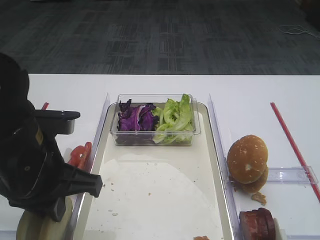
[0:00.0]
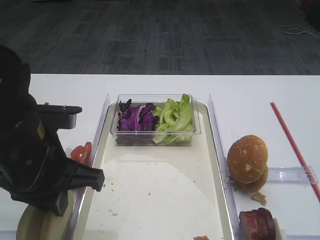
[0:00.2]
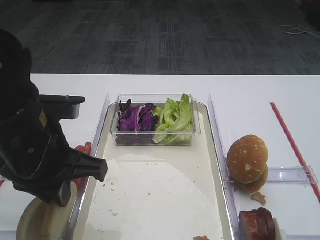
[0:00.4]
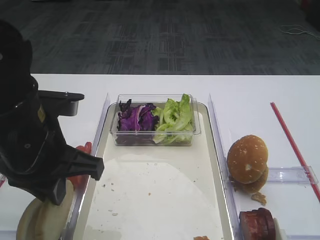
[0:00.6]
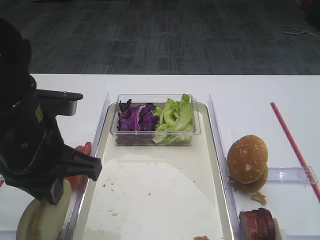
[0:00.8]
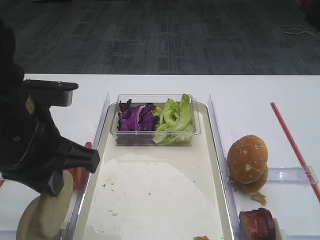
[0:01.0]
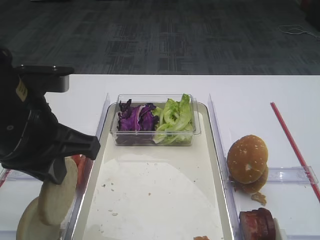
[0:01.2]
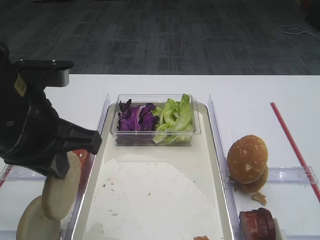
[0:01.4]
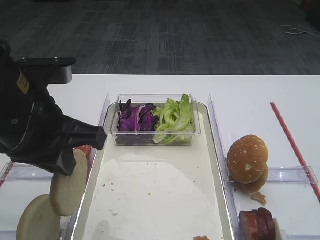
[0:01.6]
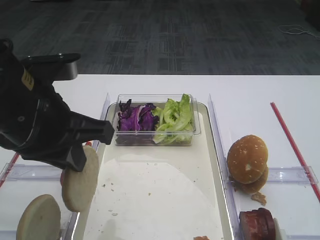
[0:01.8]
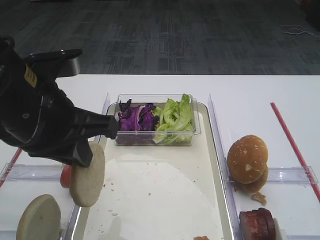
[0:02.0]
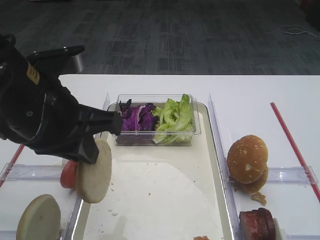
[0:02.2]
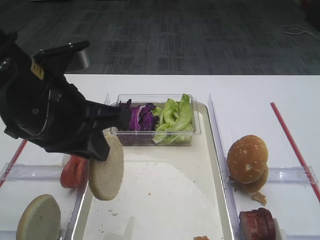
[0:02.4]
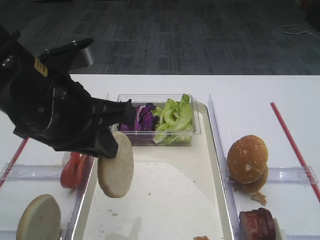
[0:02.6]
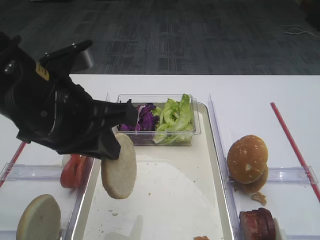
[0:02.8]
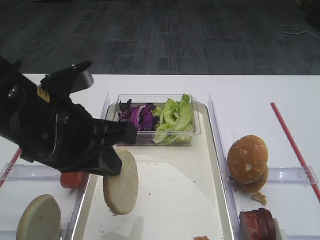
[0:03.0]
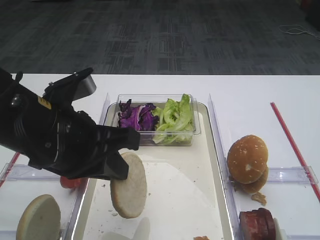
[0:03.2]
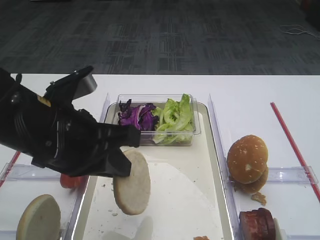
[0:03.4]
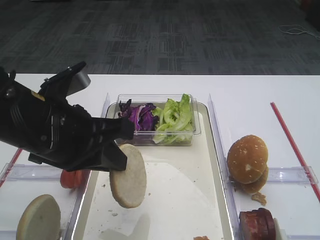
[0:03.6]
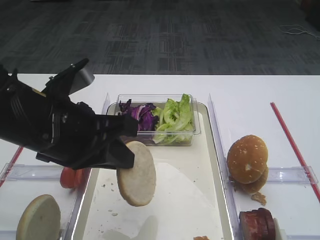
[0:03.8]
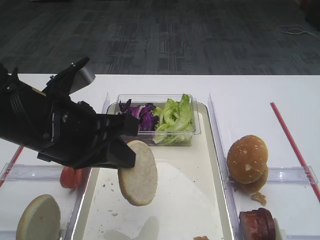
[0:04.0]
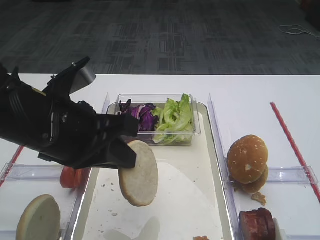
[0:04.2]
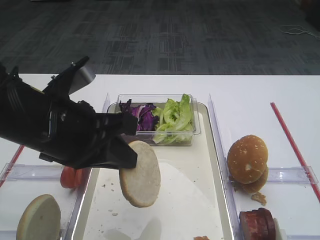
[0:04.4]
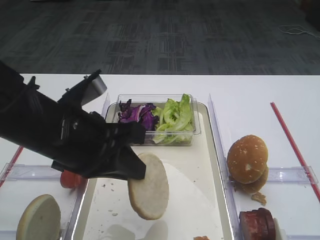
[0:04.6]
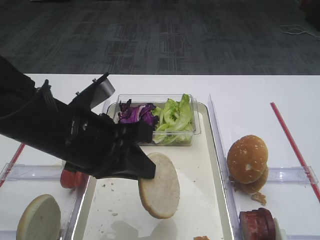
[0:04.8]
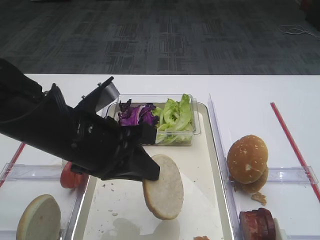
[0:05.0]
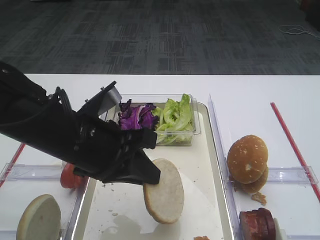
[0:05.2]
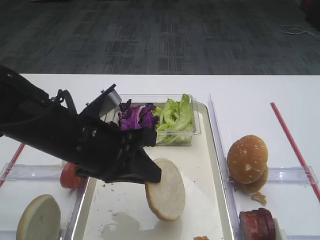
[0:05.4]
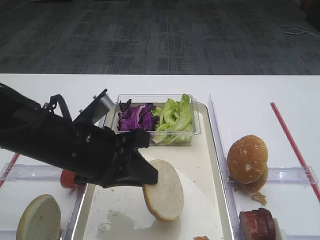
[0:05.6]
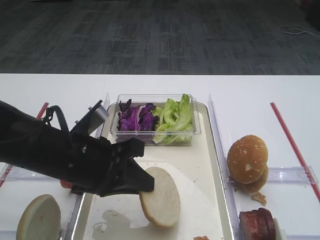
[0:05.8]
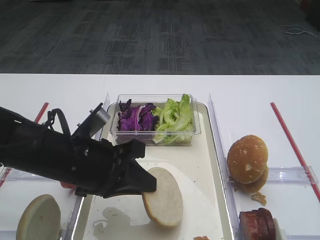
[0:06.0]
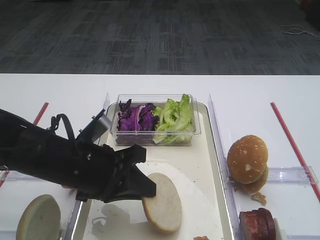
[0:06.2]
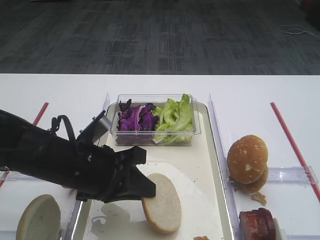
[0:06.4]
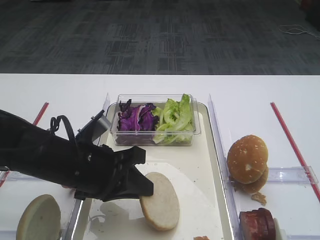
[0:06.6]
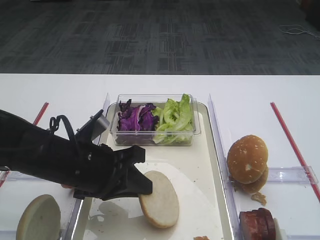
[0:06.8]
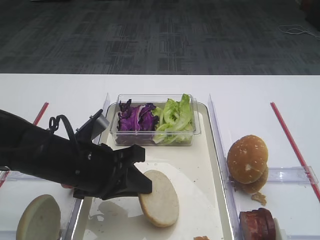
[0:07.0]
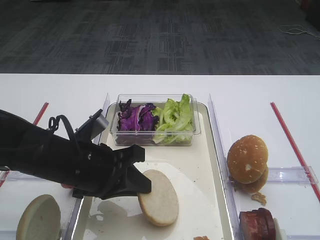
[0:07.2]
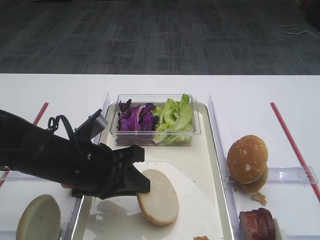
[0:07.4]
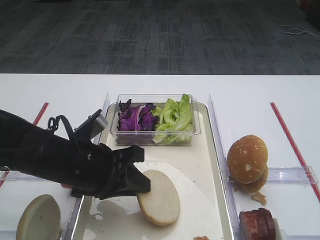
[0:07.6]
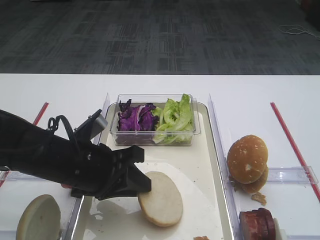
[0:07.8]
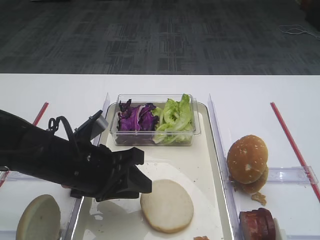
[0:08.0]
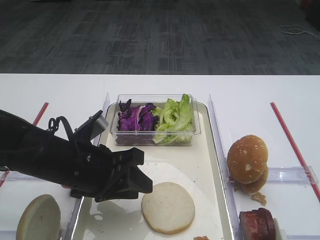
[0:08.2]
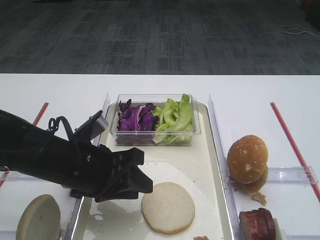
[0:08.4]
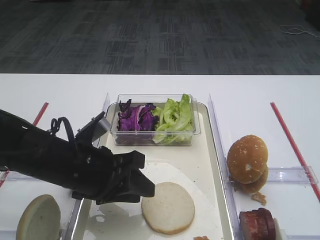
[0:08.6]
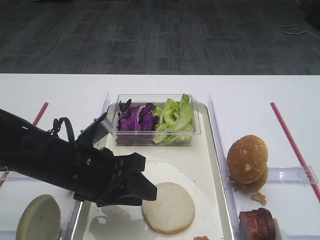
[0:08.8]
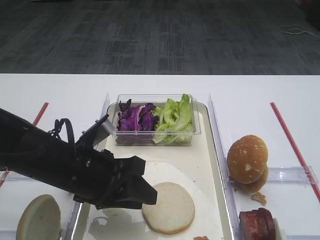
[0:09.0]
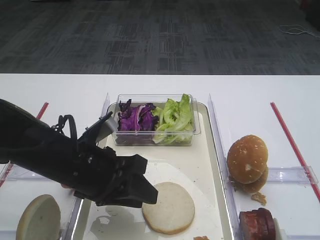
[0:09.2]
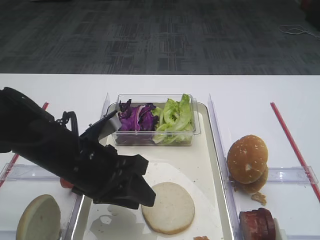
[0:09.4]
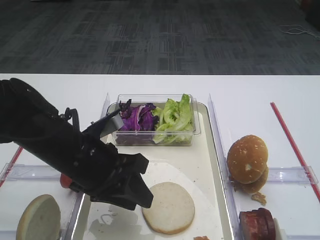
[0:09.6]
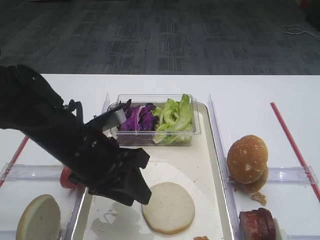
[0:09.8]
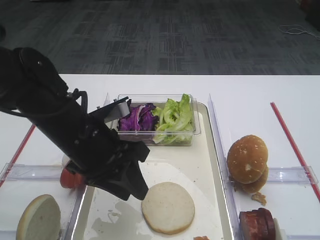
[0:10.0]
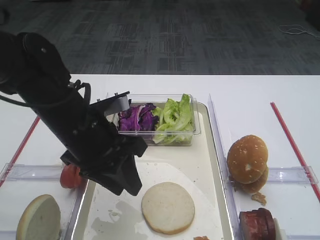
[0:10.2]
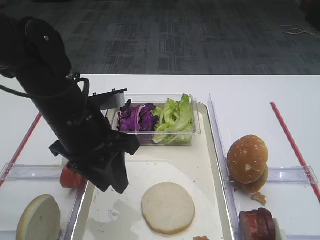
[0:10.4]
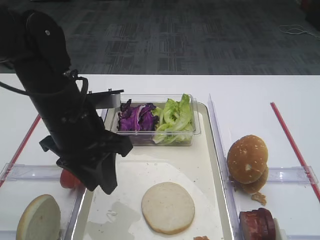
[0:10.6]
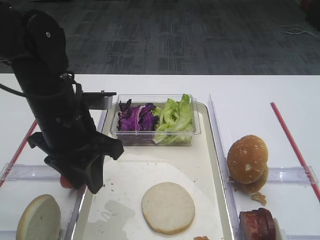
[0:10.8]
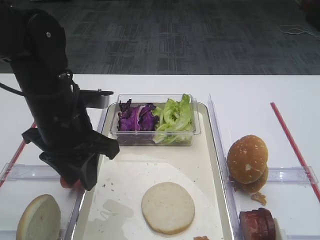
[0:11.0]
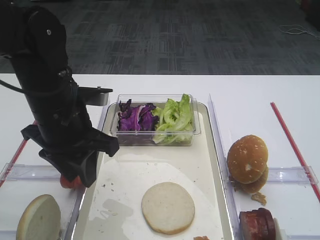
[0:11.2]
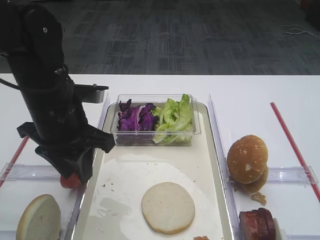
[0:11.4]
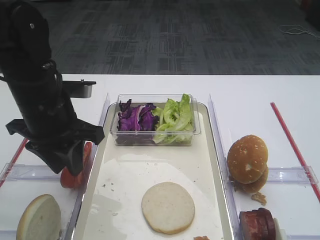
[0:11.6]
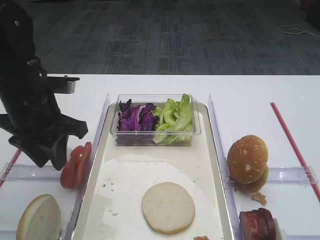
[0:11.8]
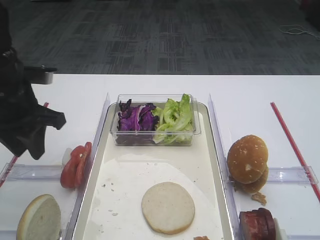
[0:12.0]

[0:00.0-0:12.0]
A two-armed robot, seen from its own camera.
Step, 0:00.8 to 0:09.6: Place the bread slice on the tray with the left gripper.
0:00.0 to 0:01.6: The left gripper is displaced upward by approximately 5 cm.
0:01.6 to 0:03.0: The grippers stay close to where they were, moving slightly.
0:03.0 to 0:04.4: There are only small adjustments of the grippers.
0:04.4 to 0:06.0: The left gripper is displaced downward by approximately 10 cm.
0:06.0 to 0:09.0: The grippers make only small movements.
0:09.0 to 0:10.4: The left gripper heads upward, covering approximately 5 cm.
0:10.4 to 0:12.0: The left gripper moves to the left, roughly 10 cm.

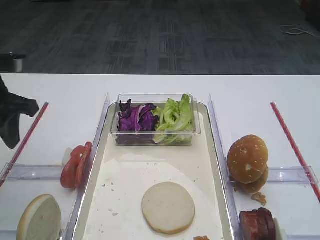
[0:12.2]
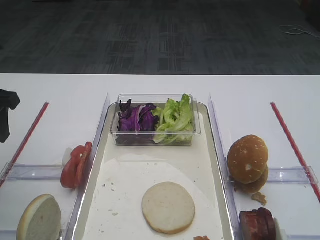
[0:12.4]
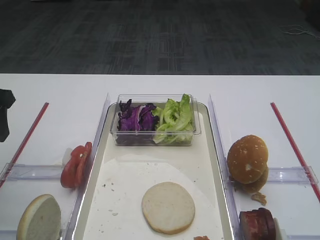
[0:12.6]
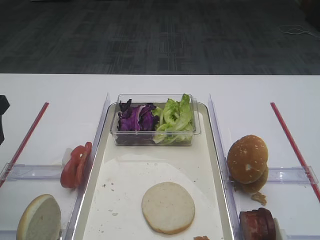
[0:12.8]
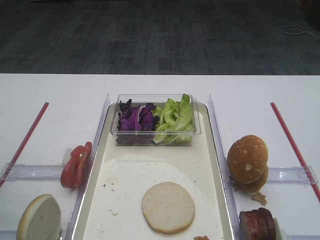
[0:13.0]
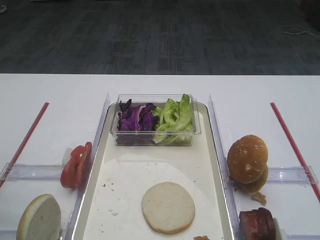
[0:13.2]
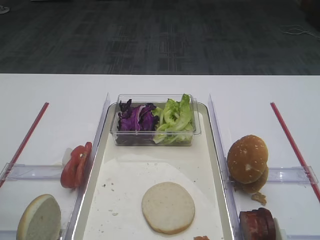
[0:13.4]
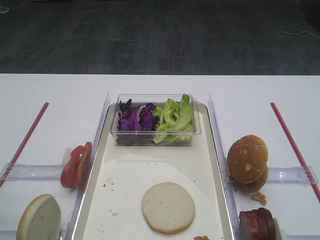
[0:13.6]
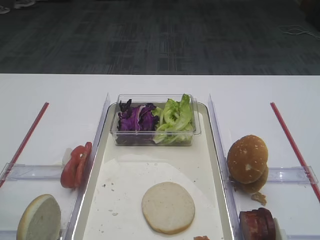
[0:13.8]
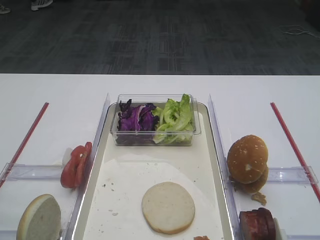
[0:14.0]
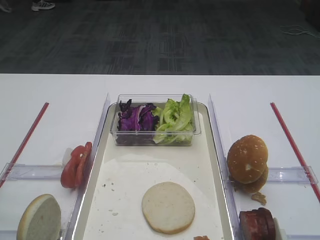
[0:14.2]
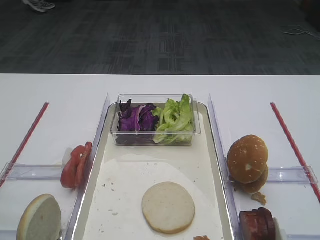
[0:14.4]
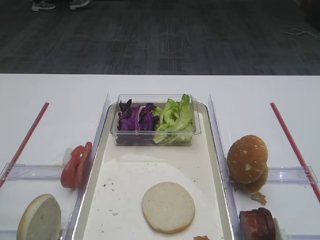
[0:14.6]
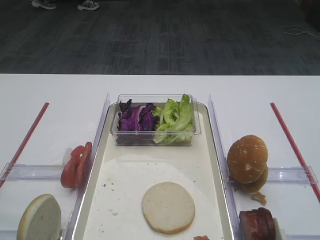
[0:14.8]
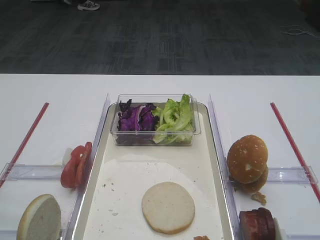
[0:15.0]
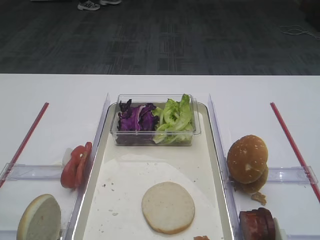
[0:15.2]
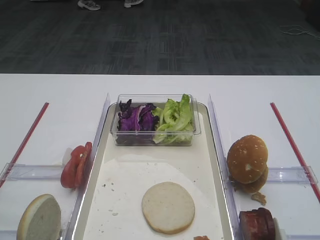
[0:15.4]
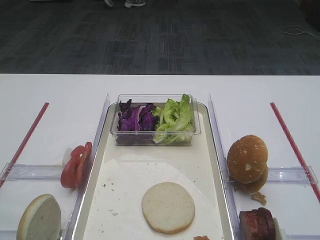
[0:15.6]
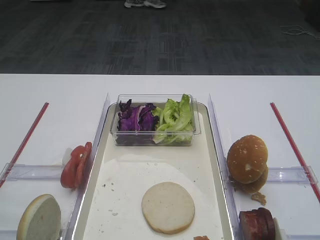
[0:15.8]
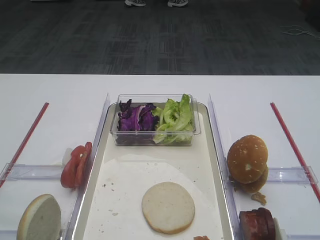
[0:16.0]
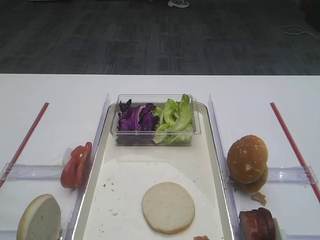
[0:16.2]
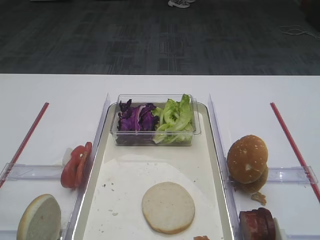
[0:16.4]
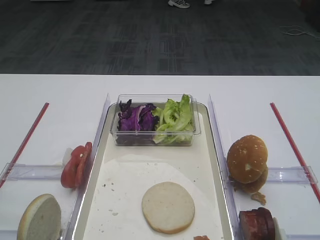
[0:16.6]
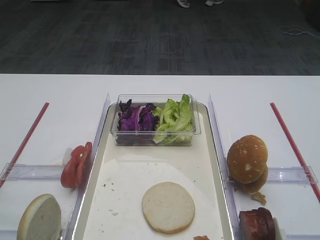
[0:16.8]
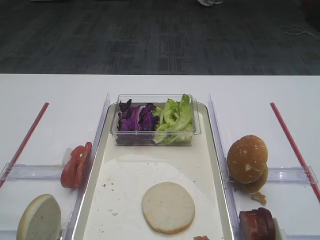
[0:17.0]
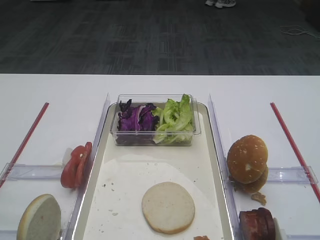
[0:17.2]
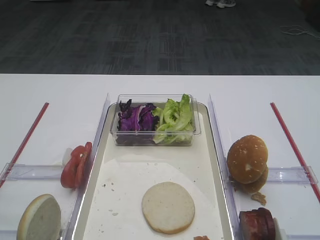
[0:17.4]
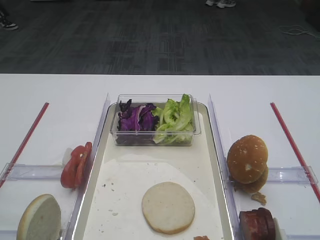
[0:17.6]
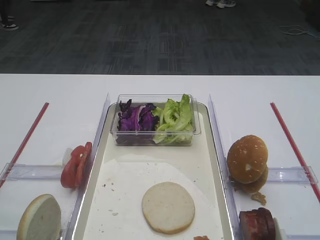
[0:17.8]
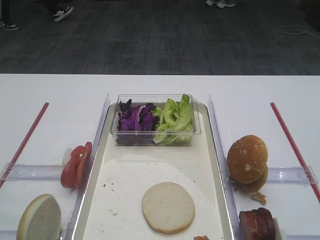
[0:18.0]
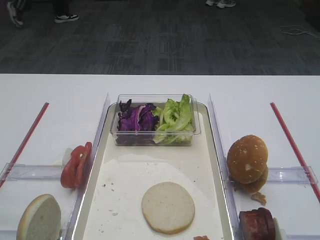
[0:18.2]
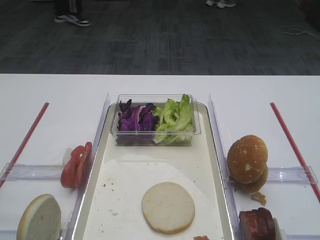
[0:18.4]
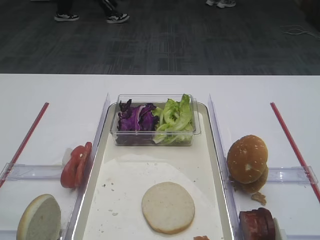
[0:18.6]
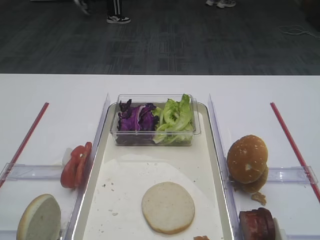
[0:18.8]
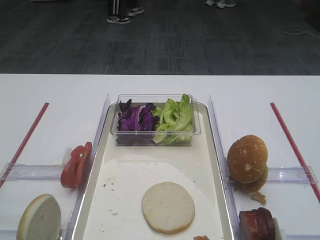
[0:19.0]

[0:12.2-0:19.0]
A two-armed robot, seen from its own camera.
0:12.2 to 0:13.6: The left gripper travels backward by about 15 cm, and opens its fingers.
0:16.2 to 0:19.0: The two grippers keep their place.

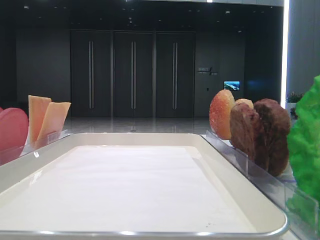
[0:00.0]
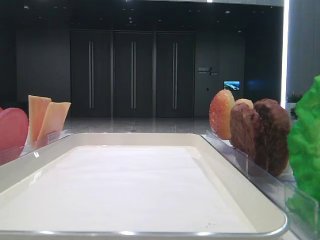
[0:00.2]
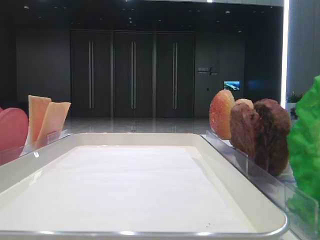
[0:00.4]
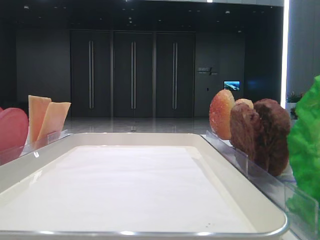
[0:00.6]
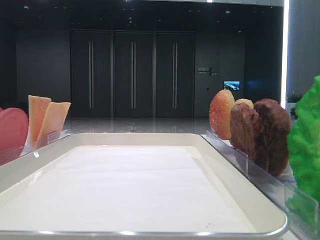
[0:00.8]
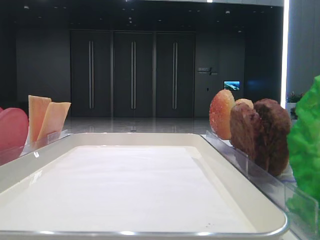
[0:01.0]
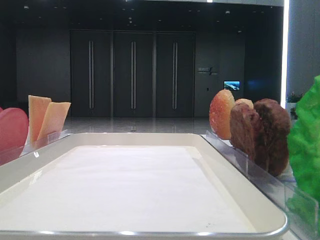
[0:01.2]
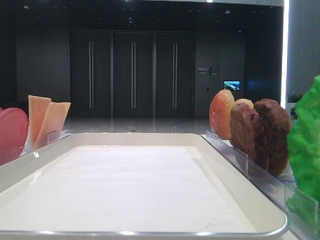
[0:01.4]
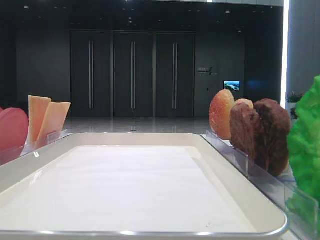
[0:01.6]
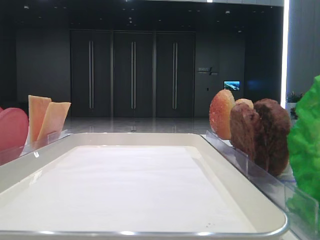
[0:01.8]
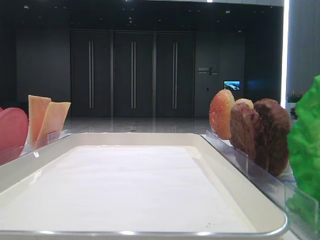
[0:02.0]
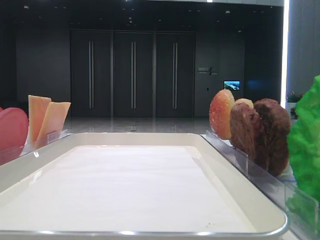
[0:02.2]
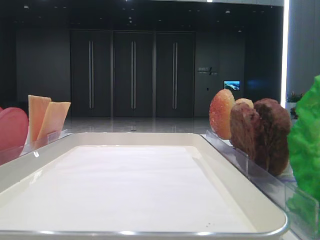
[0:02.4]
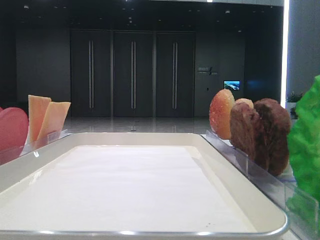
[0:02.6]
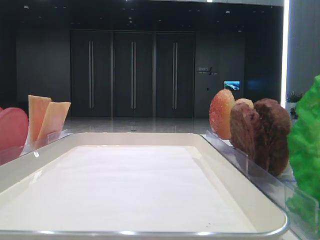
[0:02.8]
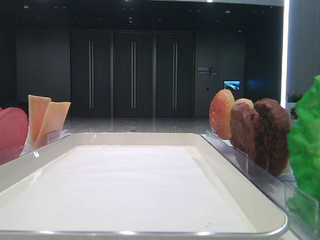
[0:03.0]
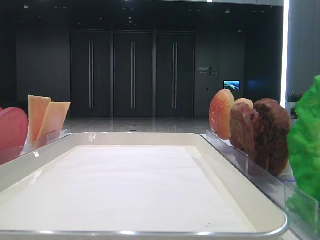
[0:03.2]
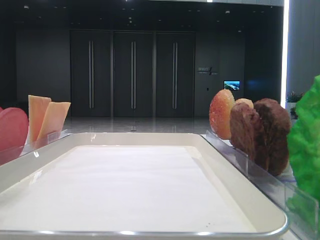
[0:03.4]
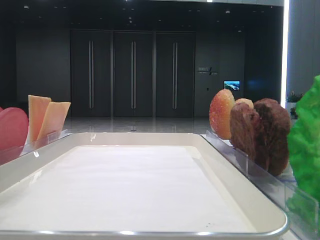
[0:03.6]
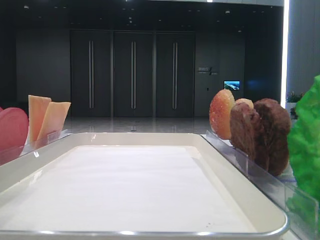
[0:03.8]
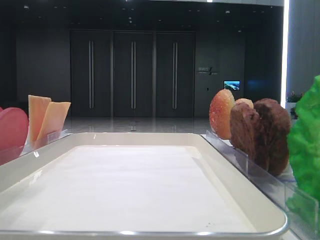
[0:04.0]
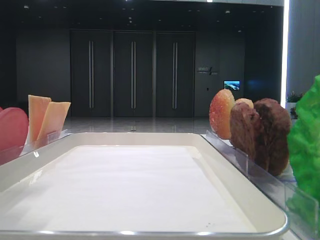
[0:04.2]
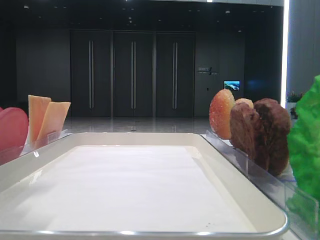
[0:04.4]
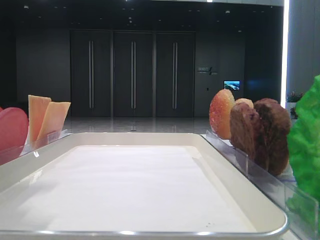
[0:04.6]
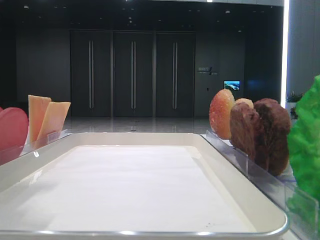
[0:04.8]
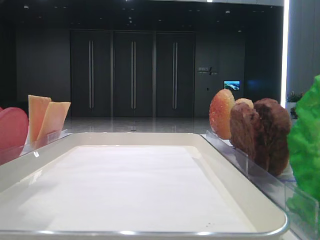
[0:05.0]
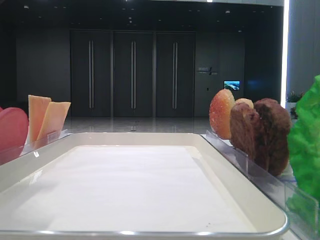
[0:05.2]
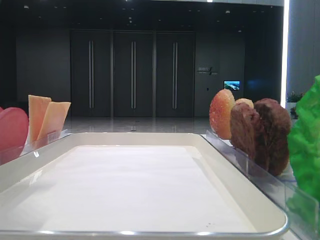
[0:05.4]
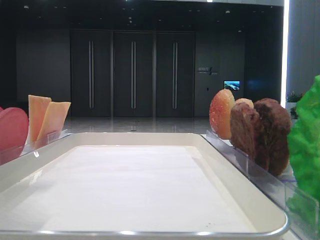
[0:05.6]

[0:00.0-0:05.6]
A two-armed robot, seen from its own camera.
0:02.8 to 0:04.2: The left gripper heads to the right, covering some 10 cm.
